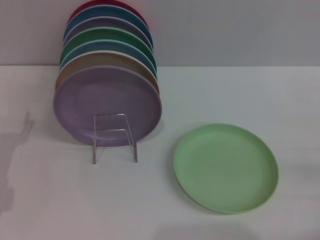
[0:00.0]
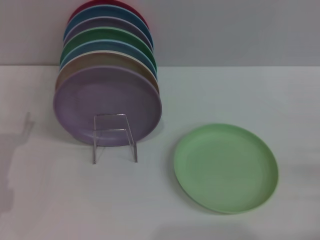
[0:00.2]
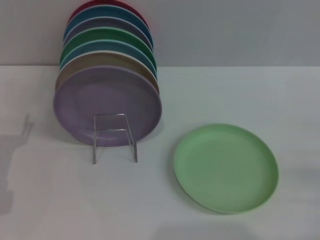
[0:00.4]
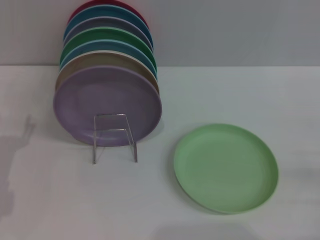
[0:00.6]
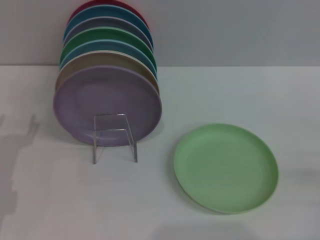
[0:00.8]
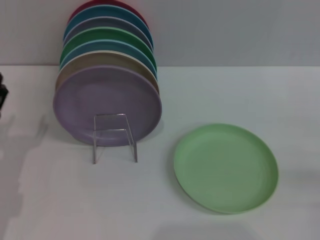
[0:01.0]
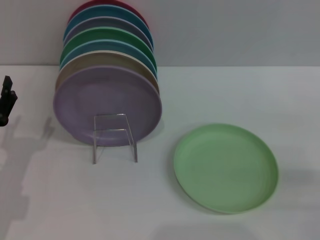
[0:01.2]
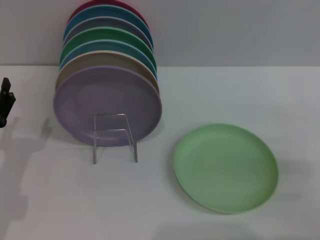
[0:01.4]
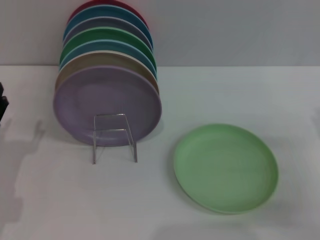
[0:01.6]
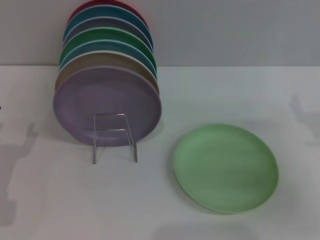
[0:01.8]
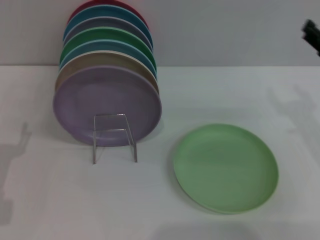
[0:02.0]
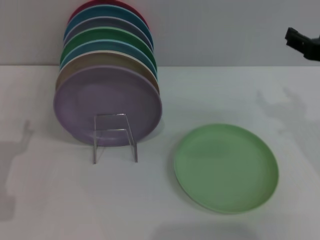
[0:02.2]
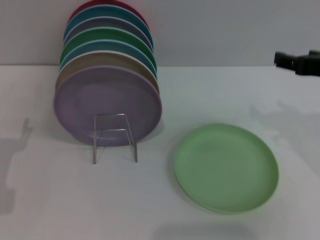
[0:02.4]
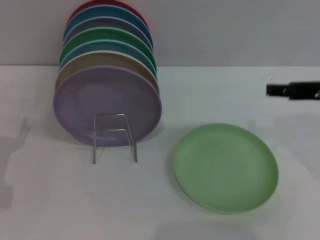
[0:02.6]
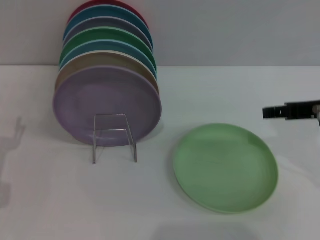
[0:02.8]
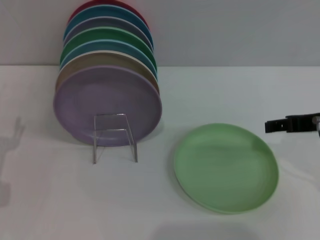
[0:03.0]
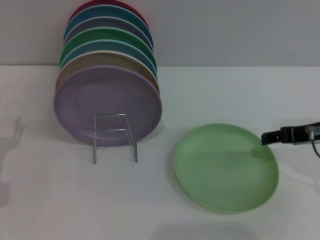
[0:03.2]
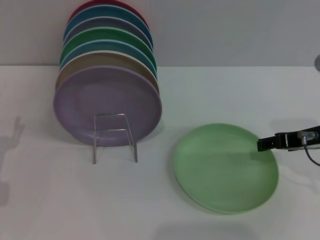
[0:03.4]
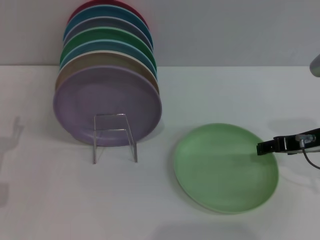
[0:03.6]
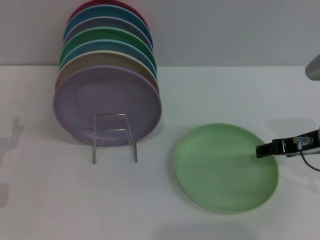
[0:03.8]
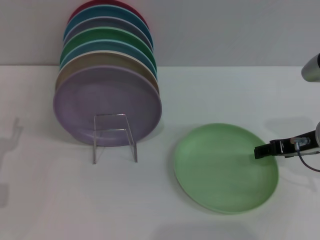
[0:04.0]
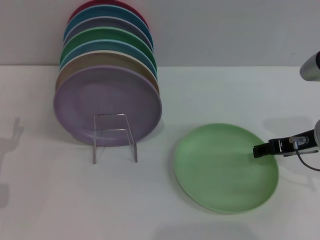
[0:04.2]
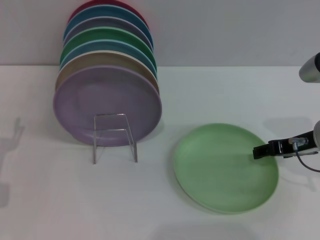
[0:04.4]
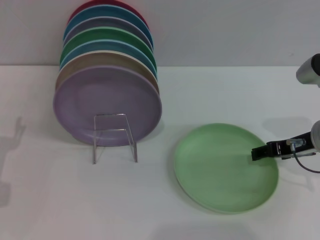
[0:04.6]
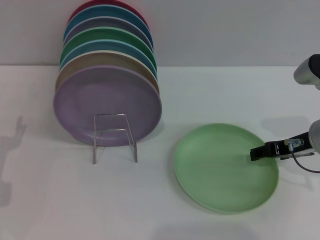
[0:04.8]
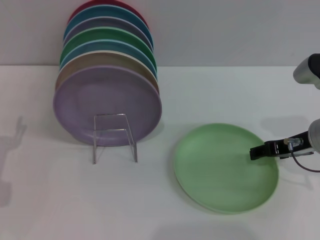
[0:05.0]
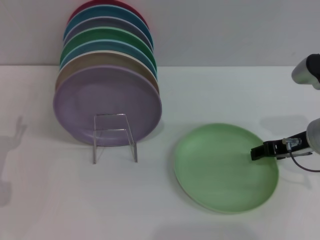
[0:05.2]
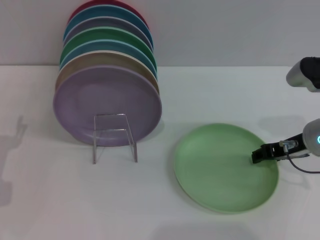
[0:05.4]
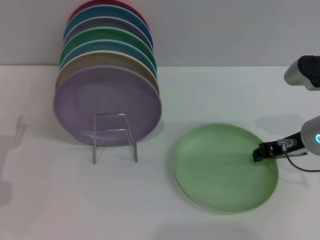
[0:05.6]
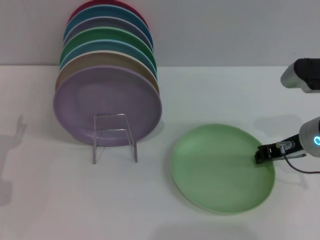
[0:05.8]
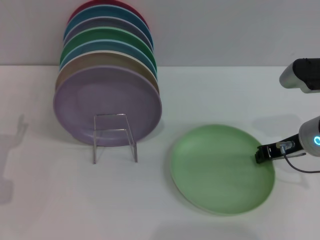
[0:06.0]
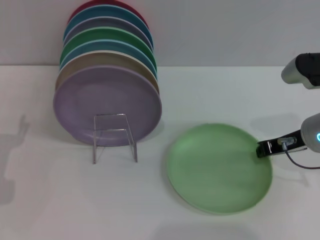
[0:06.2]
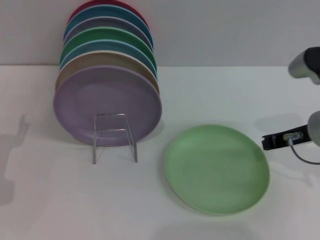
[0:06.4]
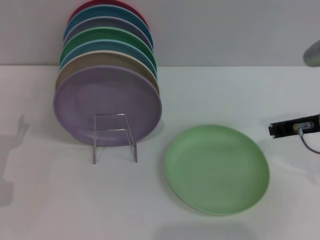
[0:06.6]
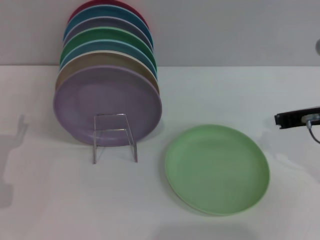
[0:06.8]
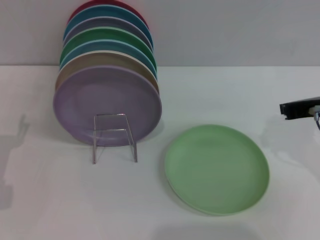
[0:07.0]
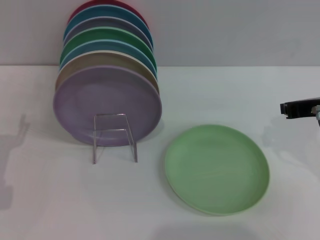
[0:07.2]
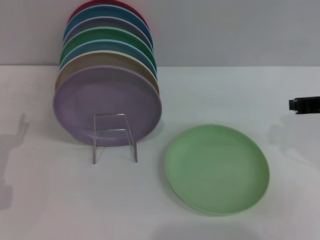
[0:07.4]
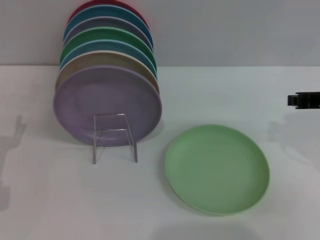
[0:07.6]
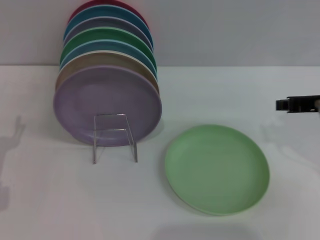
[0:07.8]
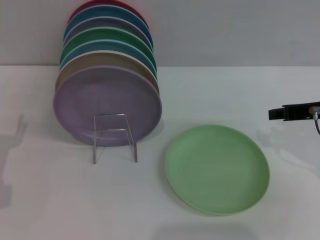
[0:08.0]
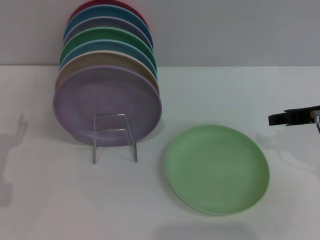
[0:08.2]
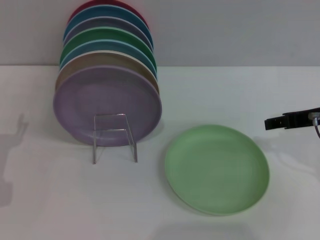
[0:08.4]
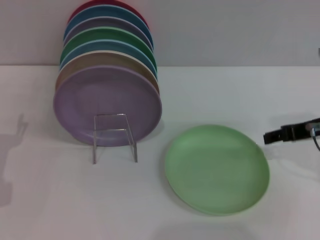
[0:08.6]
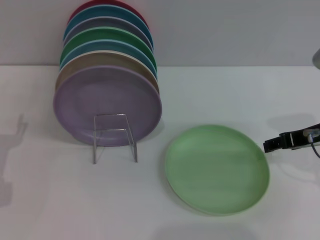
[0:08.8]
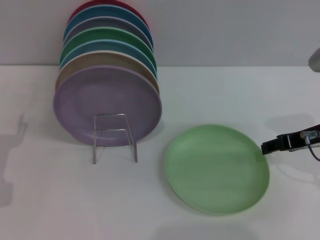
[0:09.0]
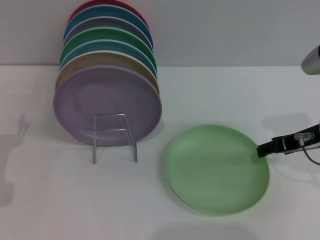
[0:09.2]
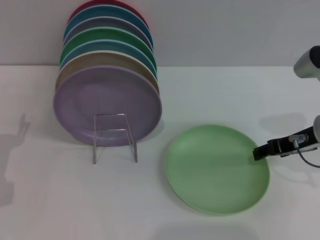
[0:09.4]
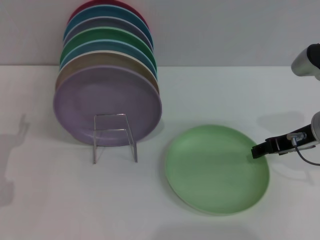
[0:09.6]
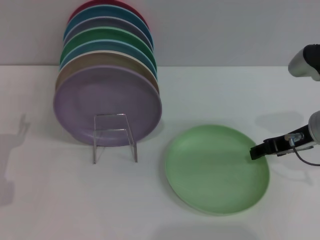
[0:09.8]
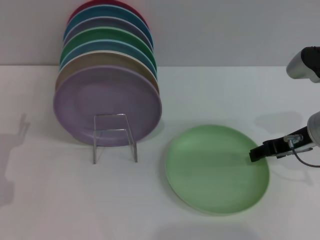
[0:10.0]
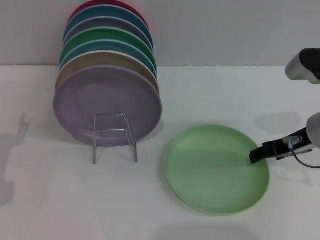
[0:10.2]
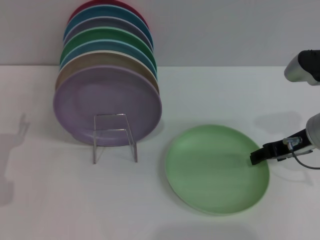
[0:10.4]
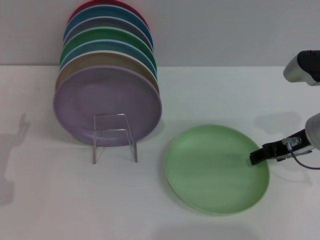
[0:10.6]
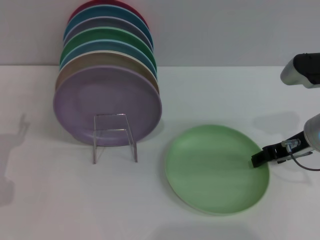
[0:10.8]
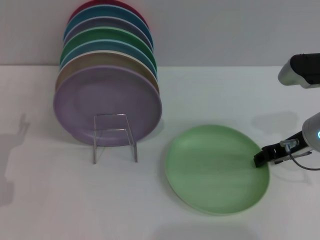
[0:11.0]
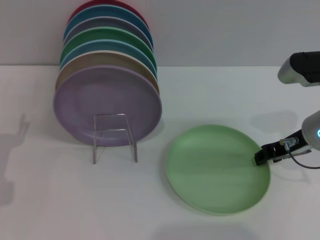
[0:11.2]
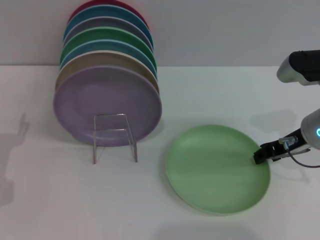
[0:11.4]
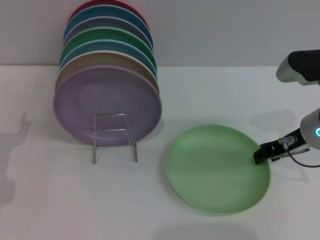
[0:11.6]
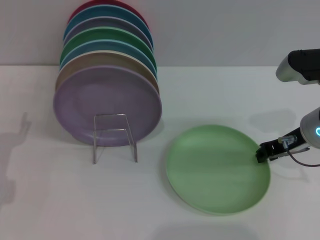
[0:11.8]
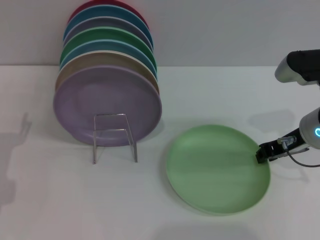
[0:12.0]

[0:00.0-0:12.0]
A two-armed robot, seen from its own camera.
Task of the whole recording: Grip the plate with one hand, pass it to the other, then set it on the shelf.
0:00.0 to 0:01.6: The right gripper travels forward by about 5 cm.
0:01.6 to 0:03.0: The right gripper shifts about 15 cm upward, to the left and forward.
0:03.0 to 0:04.4: The right gripper travels downward by approximately 5 cm.
0:04.4 to 0:06.0: The right gripper closes.
0:06.0 to 0:07.6: The right gripper moves upward, roughly 10 cm.
0:07.6 to 0:09.0: The right gripper opens.
0:09.0 to 0:10.4: The grippers make only small movements.
0:10.4 to 0:12.0: The right gripper closes.

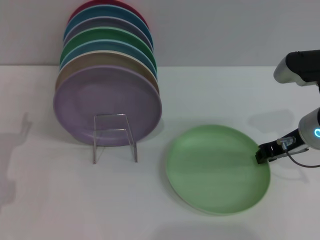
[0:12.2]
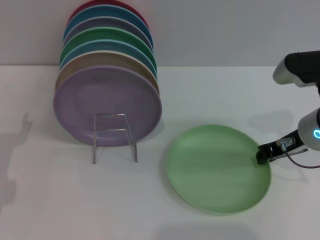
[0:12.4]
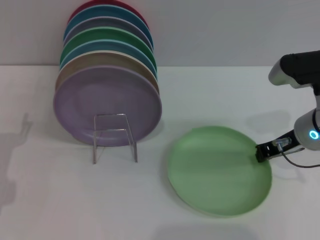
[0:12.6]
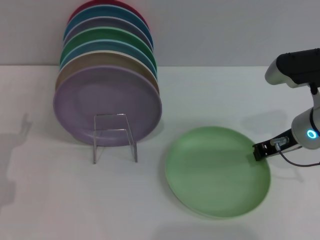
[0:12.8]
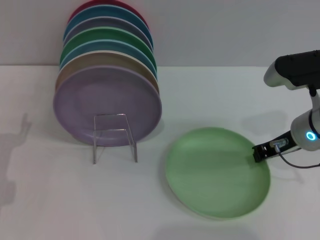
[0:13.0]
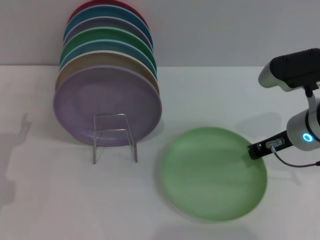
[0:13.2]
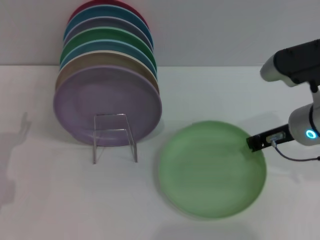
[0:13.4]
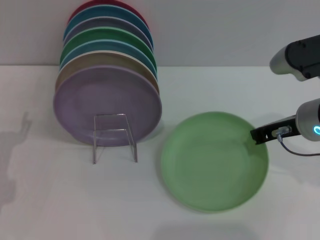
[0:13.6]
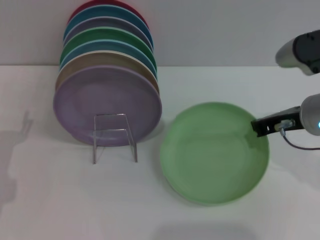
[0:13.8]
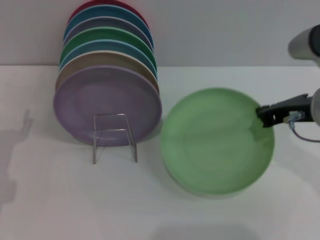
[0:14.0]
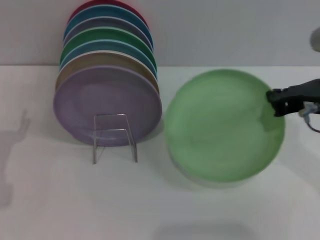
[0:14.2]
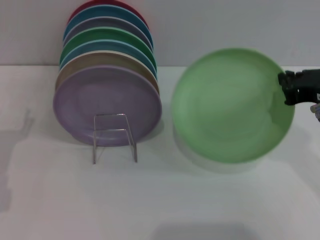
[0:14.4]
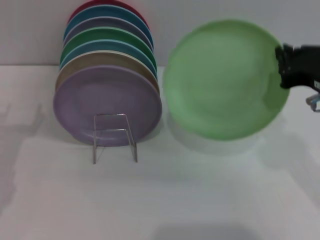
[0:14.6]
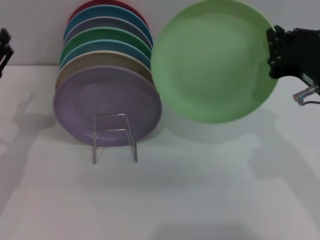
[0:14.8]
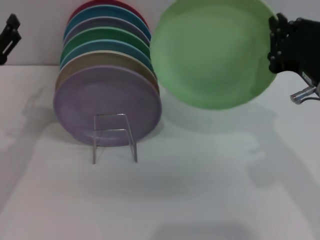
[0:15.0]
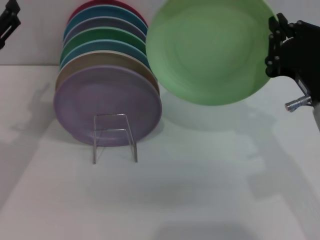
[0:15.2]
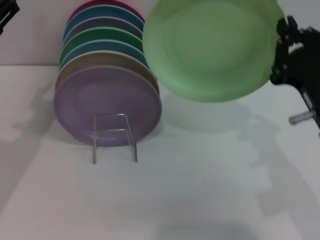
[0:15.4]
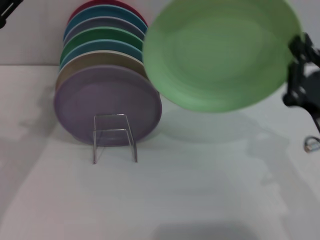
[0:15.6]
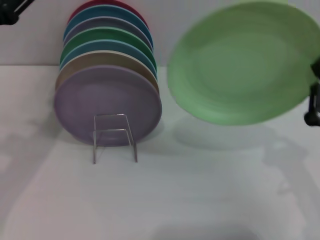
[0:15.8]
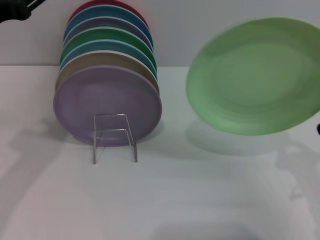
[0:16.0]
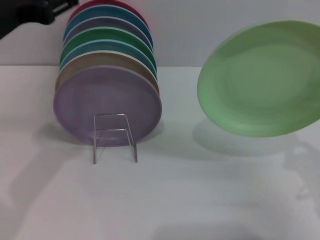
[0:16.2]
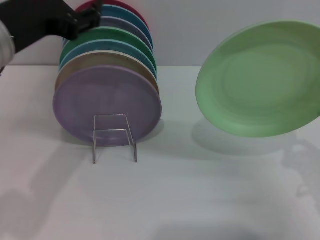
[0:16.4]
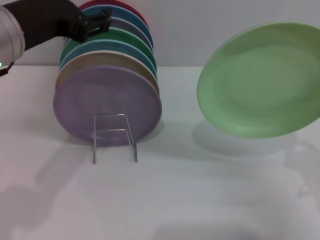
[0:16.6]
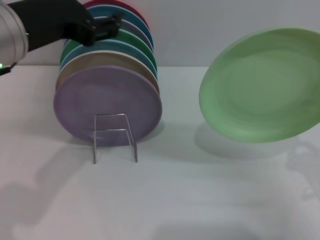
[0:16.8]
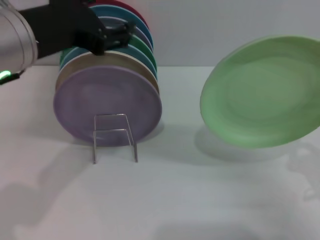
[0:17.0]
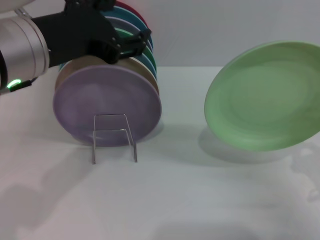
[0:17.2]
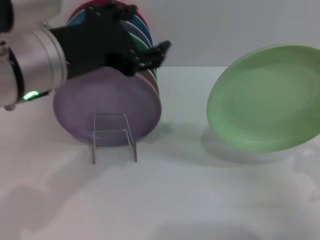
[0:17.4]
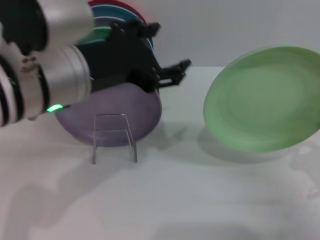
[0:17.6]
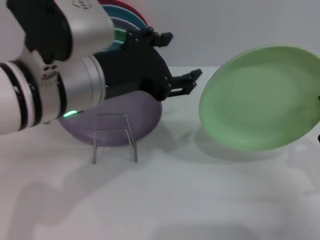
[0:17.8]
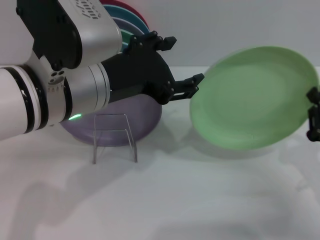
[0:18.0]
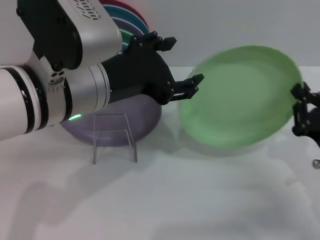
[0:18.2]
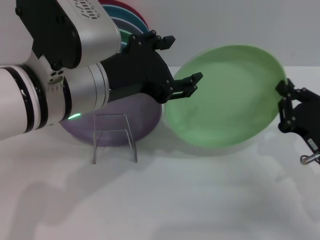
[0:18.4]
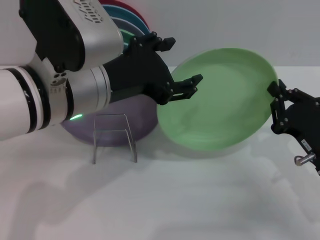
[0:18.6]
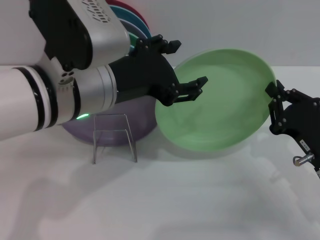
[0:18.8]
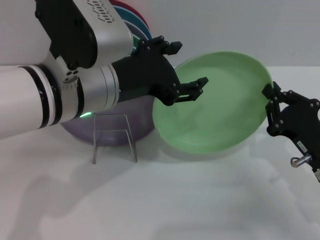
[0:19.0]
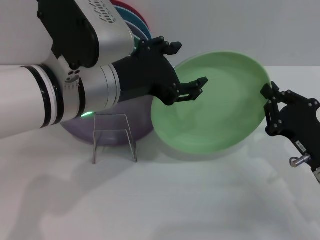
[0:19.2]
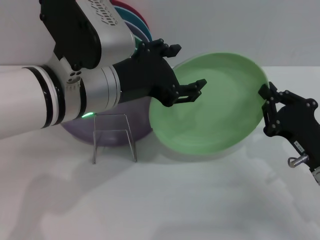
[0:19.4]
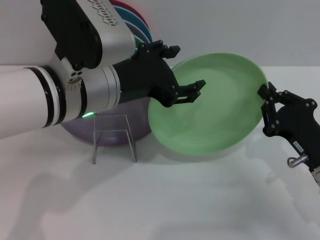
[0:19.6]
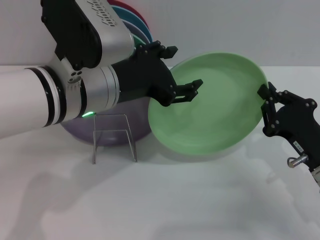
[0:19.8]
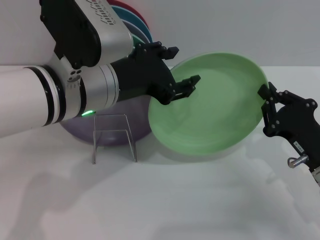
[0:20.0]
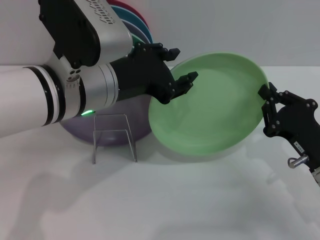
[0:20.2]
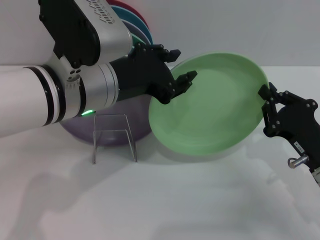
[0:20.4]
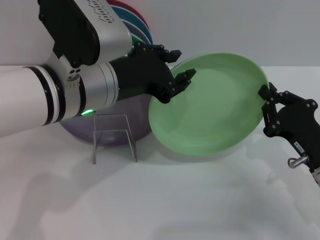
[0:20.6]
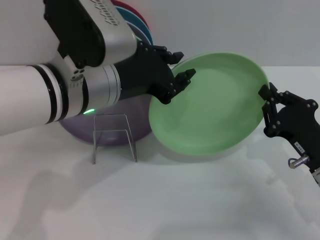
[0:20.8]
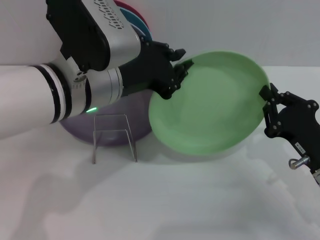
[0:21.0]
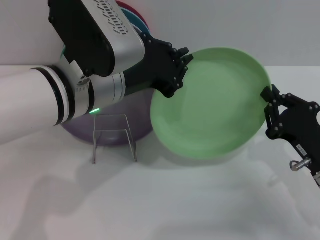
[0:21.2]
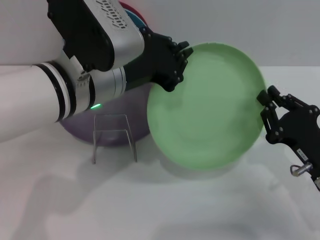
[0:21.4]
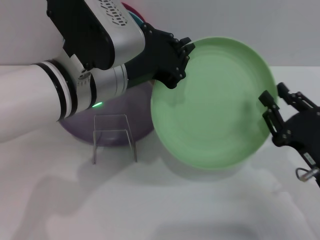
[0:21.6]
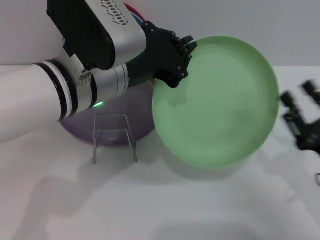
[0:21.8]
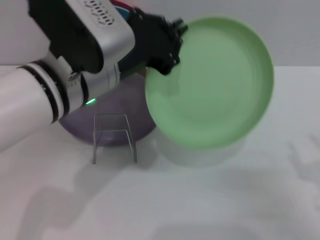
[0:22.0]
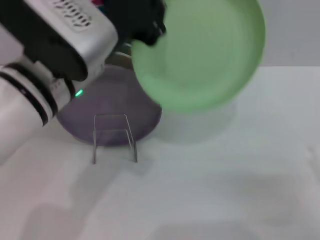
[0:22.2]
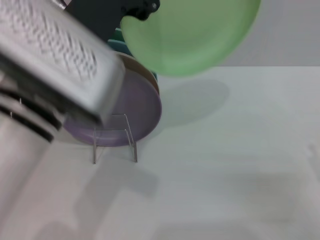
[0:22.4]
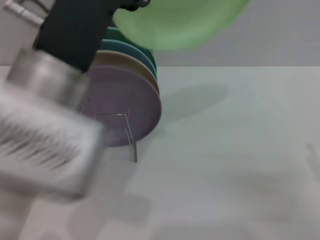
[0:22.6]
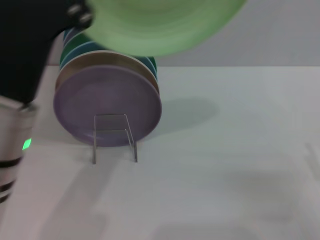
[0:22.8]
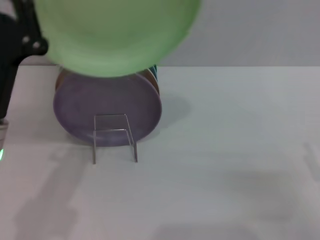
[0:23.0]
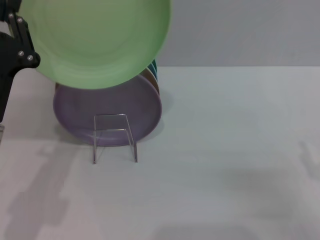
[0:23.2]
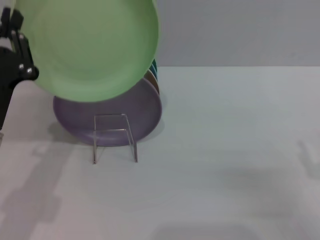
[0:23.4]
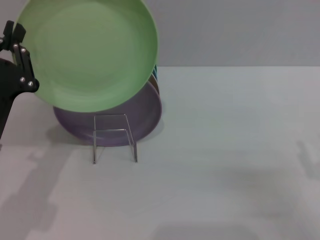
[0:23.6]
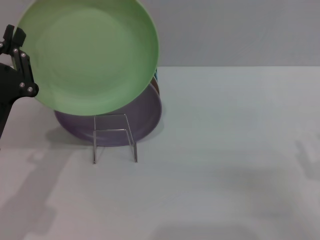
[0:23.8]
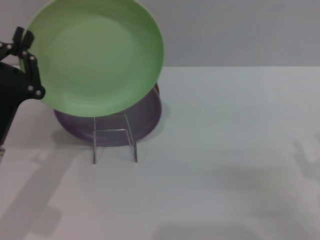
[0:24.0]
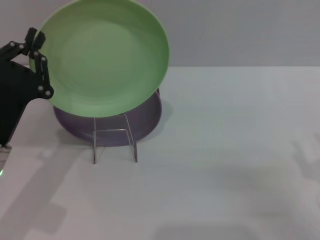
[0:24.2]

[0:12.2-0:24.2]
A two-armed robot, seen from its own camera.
Task of the whole recording: Grip the plate with one hand, pass it to the other, then set it on the shelf.
Step, 0:12.2 to 0:14.4: Pick up the plate with the right gripper.
Step, 0:14.6 to 0:21.8: Pass the plate from the right gripper to the left gripper.
0:12.2 to 0:13.8: The right gripper moves approximately 5 cm.
0:13.8 to 0:15.2: The left gripper moves upward, roughly 10 cm; the right gripper goes about 5 cm backward.
0:15.2 to 0:16.6: The right gripper moves downward and to the right, roughly 15 cm; the left gripper goes some 15 cm upward and to the right.
0:16.6 to 0:18.2: The left gripper heads to the right, covering approximately 5 cm. Meanwhile the right gripper ends up about 5 cm from where it was.
0:19.8 to 0:21.2: The left gripper closes up.
0:21.2 to 0:22.6: The right gripper shifts approximately 10 cm backward and to the right, and opens its fingers, while the left gripper shifts roughly 5 cm backward.
0:22.6 to 0:24.2: The left gripper travels downward and to the left by about 20 cm.
